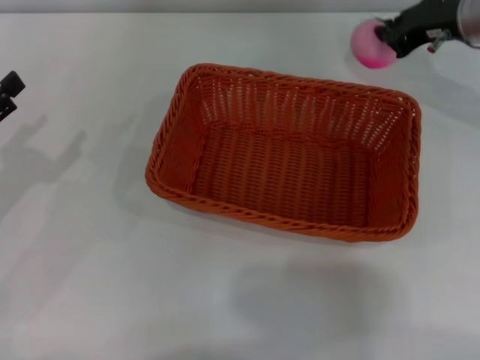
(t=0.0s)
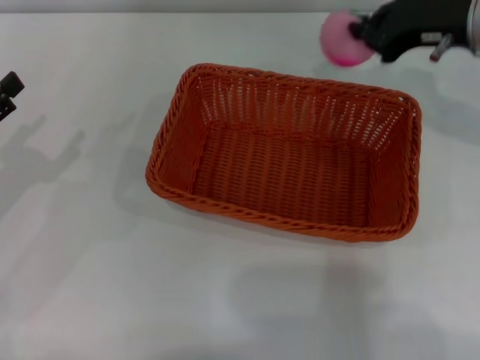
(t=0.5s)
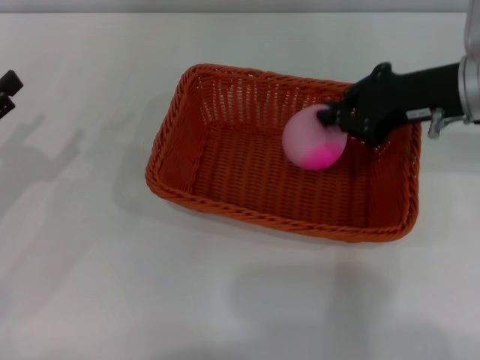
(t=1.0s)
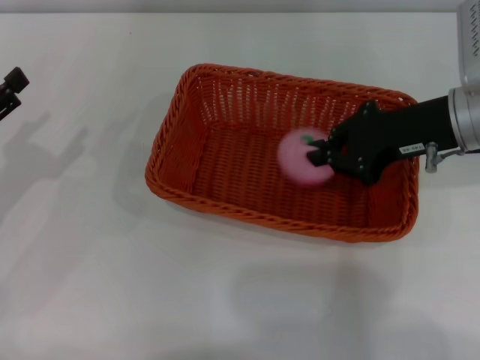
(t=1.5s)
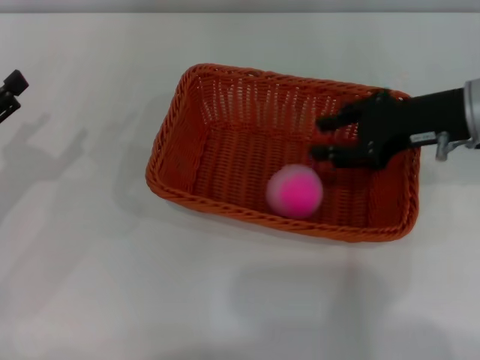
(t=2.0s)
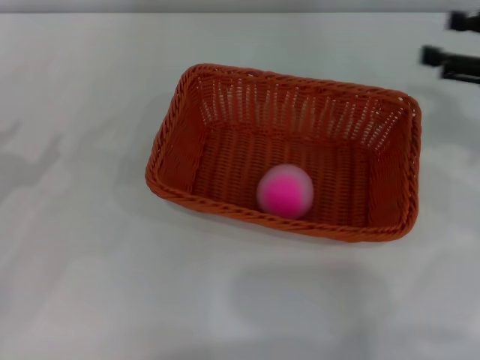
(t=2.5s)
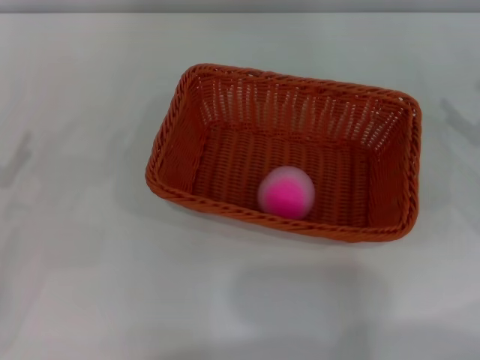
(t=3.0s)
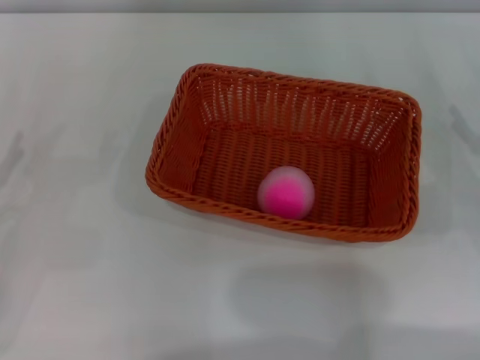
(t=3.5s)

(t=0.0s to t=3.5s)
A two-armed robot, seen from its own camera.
Step, t=1.0s - t=2.0s: Place the peach into the basket with the left gripper.
t=0.0s - t=2.0s: The right gripper heads backward, covering about 10 cm, and opens its fingers.
t=2.0s - t=3.5s: The right gripper moves to the right, downward and backward, approximately 15 cm, and opens.
